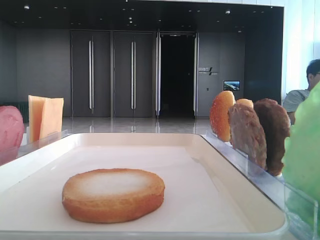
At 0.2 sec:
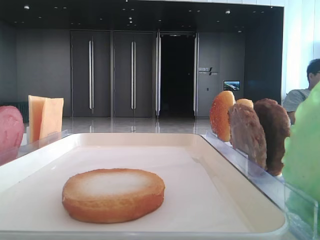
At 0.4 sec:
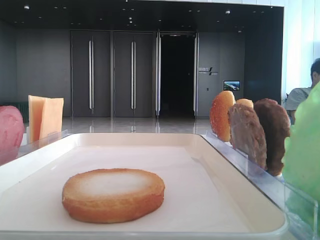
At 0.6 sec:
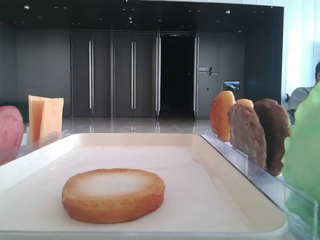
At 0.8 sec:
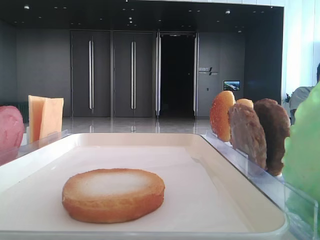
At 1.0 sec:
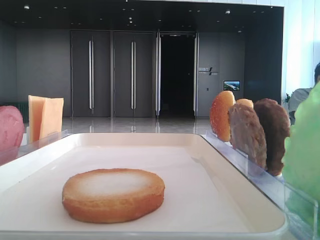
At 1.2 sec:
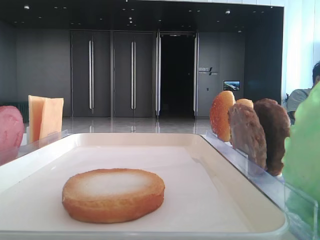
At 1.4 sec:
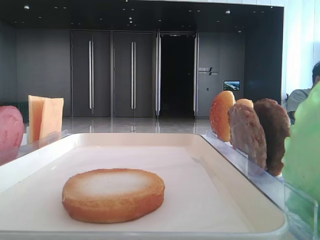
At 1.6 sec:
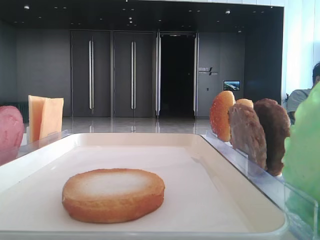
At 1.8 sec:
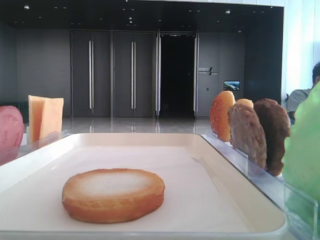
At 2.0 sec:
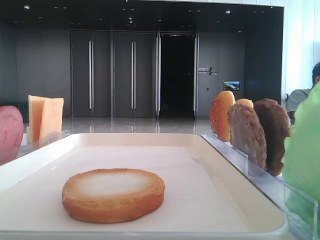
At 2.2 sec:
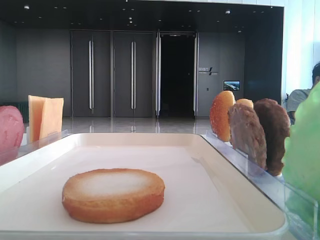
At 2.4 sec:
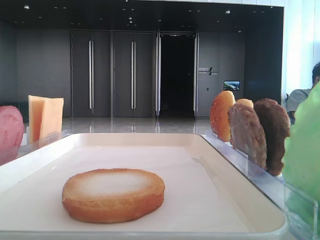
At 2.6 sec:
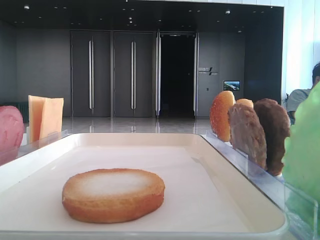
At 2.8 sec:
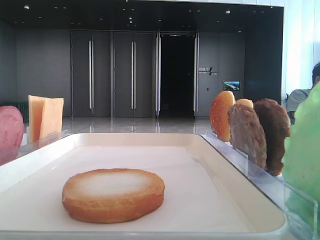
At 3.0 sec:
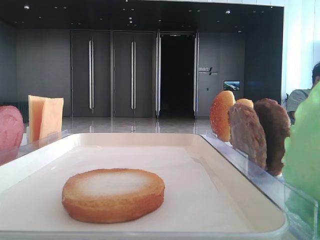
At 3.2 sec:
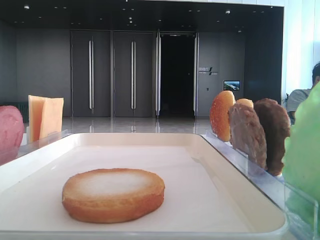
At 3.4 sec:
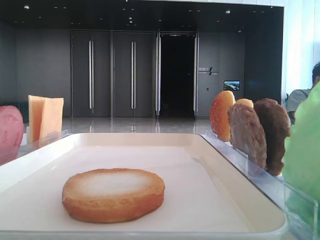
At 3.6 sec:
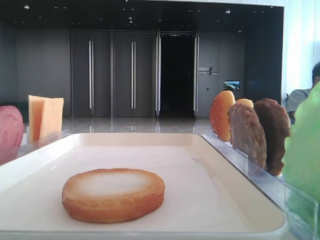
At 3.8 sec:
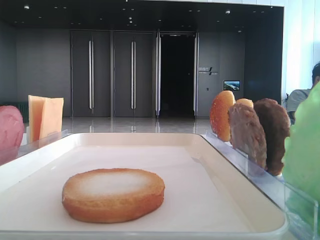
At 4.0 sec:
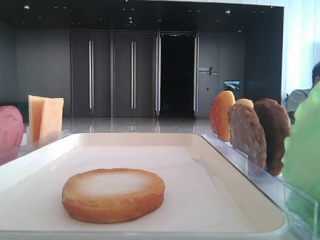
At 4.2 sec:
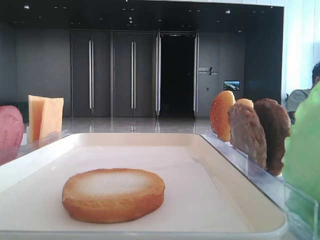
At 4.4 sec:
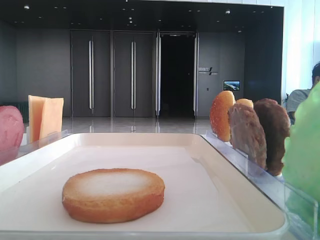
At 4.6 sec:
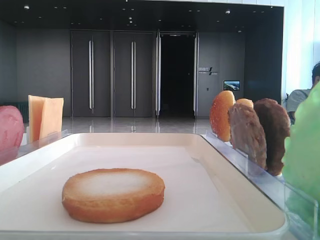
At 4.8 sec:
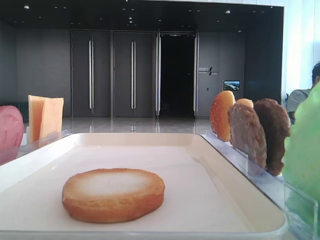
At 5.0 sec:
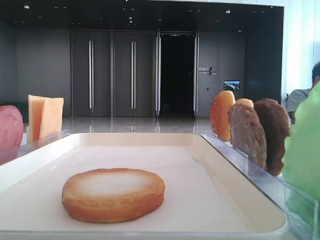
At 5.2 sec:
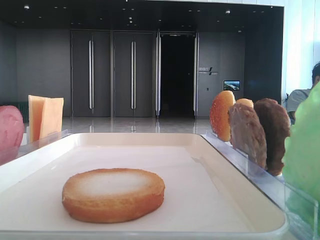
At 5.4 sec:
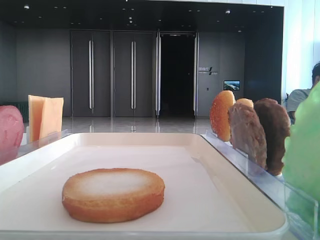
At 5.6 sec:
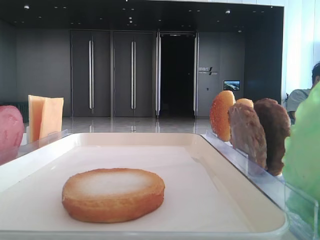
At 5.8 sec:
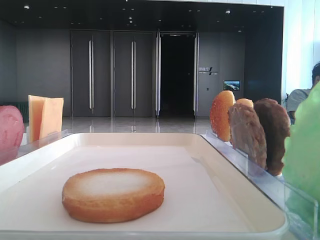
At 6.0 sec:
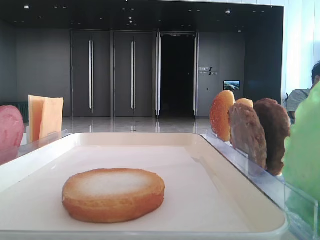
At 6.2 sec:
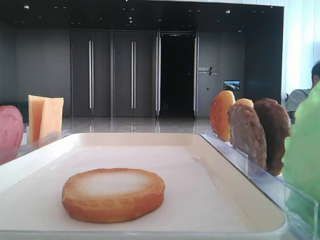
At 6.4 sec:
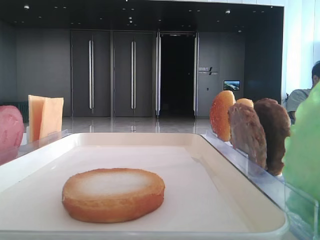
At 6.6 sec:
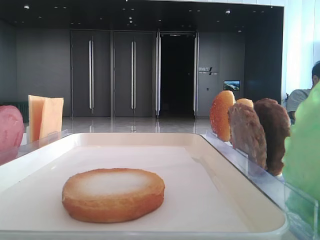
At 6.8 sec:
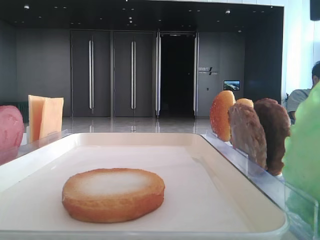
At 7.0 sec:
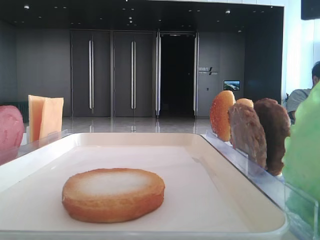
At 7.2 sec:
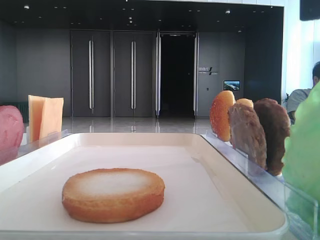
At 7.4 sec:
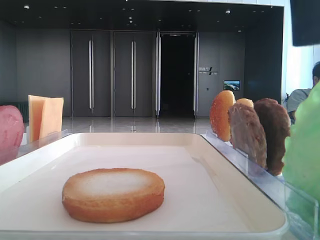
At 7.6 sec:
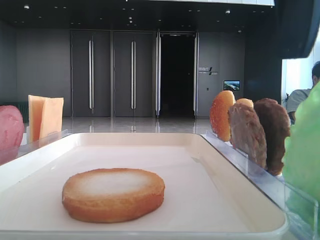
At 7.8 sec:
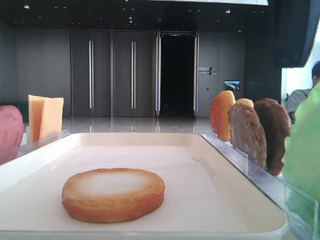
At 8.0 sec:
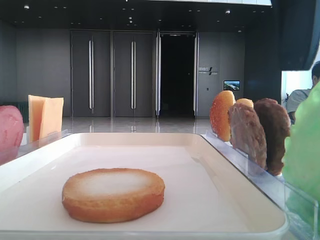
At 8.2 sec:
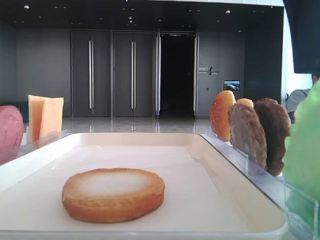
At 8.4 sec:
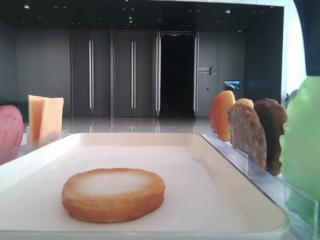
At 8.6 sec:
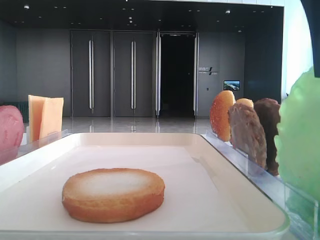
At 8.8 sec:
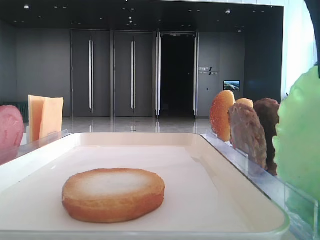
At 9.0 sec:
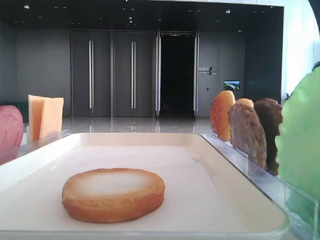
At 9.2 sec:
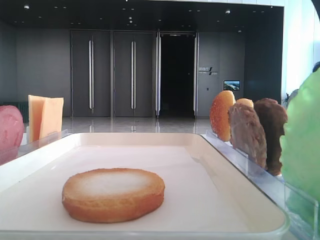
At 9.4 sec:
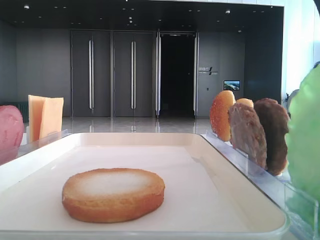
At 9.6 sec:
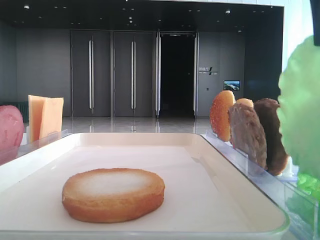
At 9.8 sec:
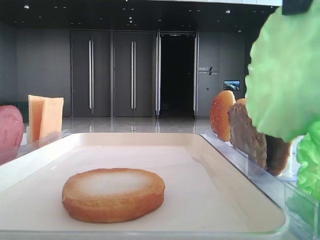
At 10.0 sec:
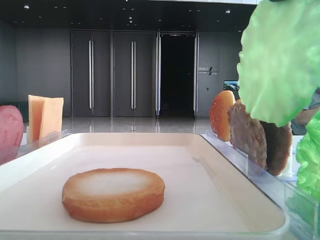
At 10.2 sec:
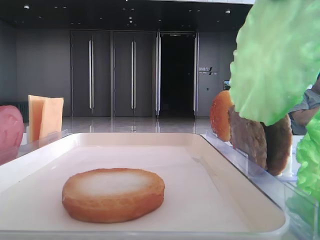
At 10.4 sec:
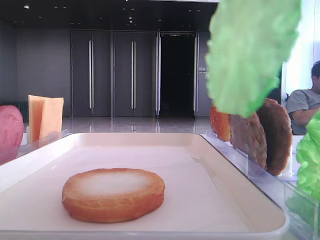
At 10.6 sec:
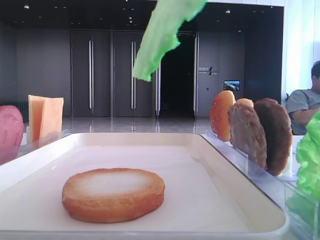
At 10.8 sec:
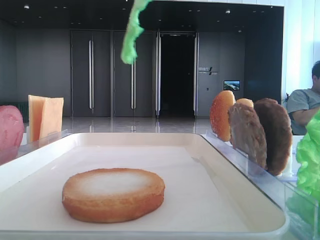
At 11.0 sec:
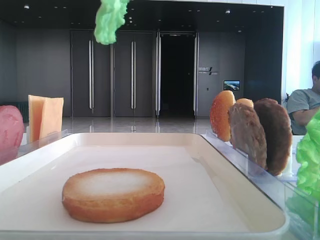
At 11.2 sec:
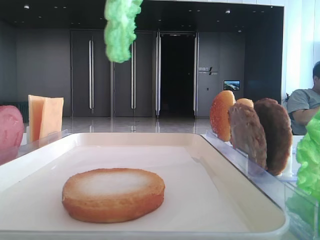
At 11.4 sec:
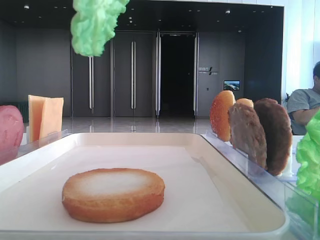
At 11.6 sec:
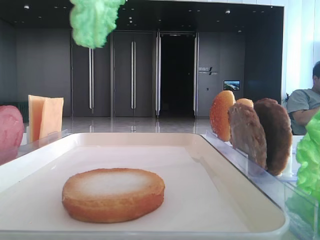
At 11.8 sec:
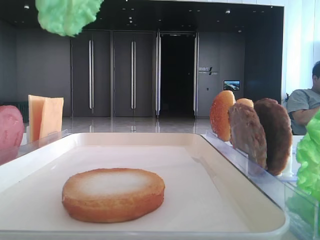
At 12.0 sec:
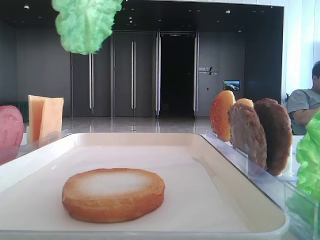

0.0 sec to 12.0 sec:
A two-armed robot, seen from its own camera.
Step, 0.0 sec to 8.4 sec: Grab the lettuce leaf with the right hand.
6.0 sec to 7.6 sec: The right gripper is displaced to the left by roughly 5 cm.
7.6 sec to 9.0 sec: The right gripper closes.
9.0 sec to 10.4 sec: The right gripper travels upward by some 5 cm.

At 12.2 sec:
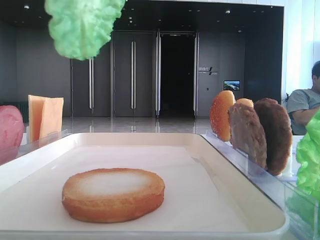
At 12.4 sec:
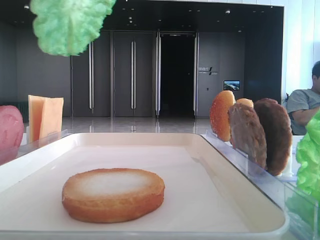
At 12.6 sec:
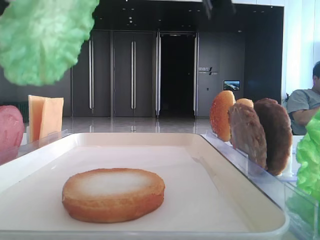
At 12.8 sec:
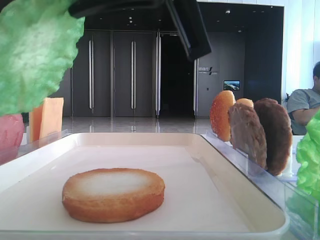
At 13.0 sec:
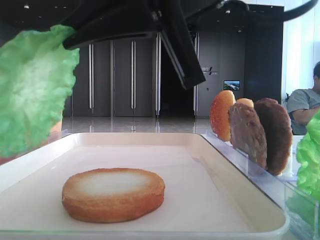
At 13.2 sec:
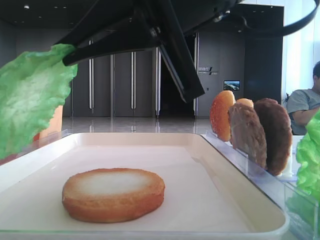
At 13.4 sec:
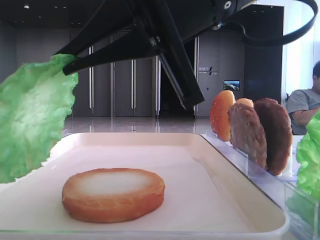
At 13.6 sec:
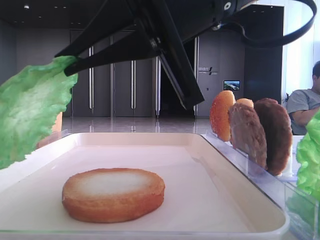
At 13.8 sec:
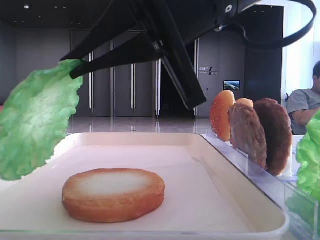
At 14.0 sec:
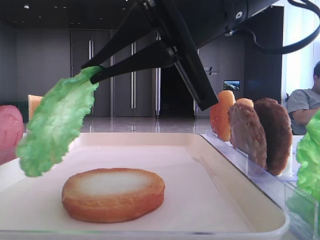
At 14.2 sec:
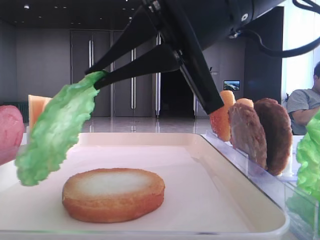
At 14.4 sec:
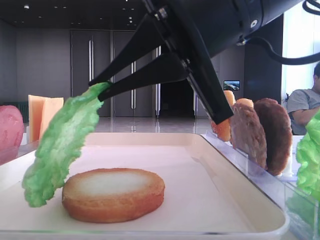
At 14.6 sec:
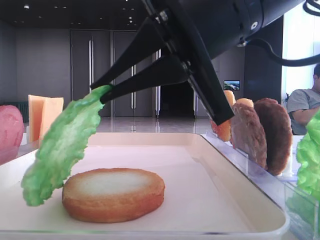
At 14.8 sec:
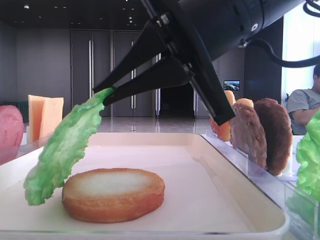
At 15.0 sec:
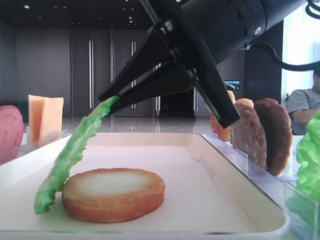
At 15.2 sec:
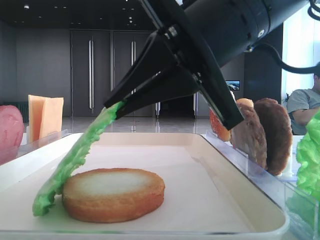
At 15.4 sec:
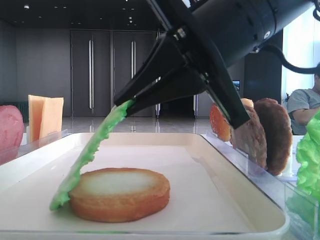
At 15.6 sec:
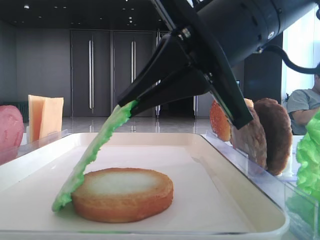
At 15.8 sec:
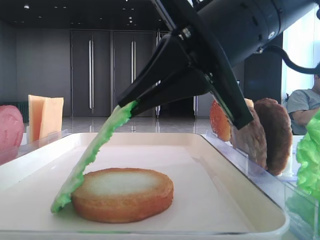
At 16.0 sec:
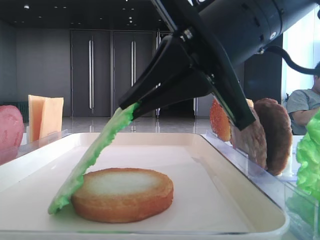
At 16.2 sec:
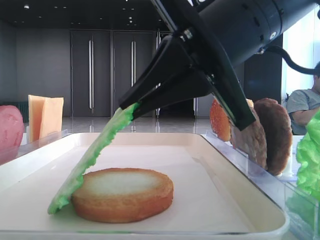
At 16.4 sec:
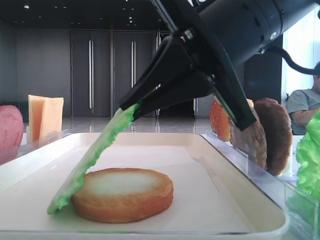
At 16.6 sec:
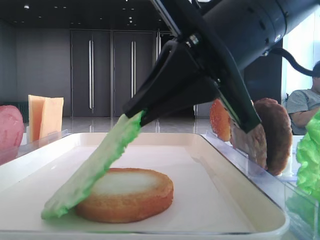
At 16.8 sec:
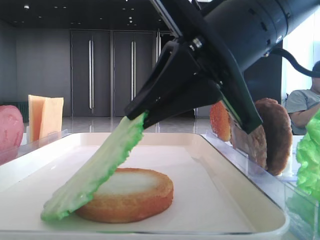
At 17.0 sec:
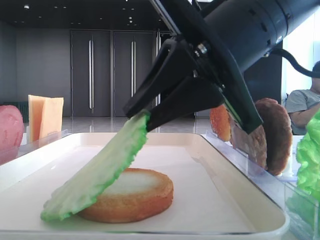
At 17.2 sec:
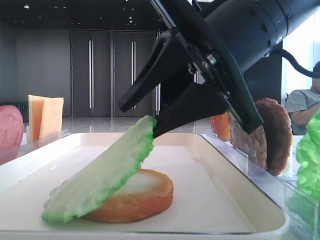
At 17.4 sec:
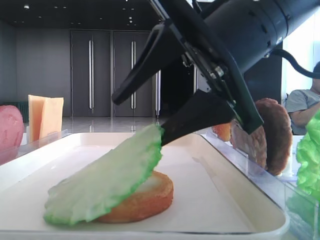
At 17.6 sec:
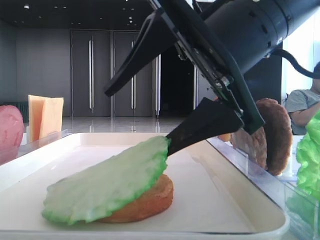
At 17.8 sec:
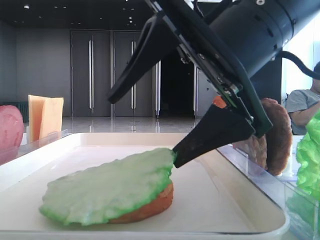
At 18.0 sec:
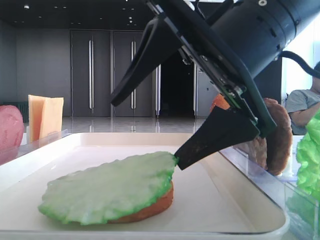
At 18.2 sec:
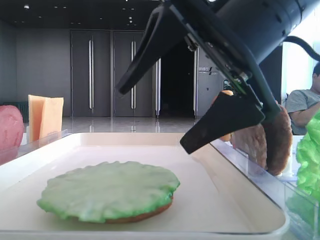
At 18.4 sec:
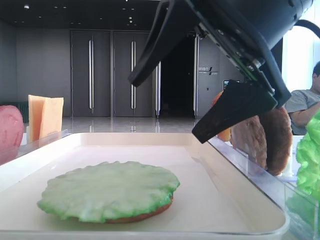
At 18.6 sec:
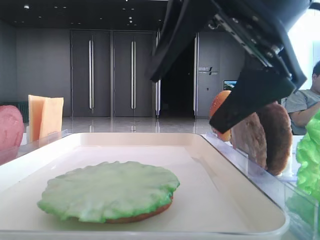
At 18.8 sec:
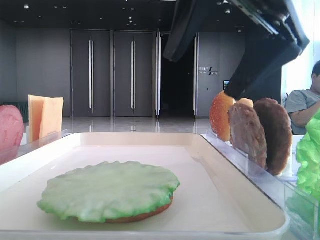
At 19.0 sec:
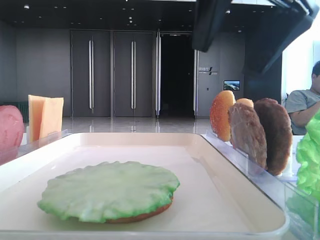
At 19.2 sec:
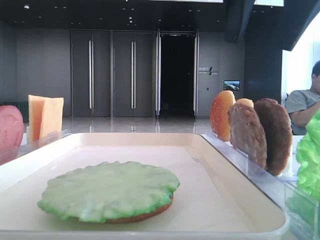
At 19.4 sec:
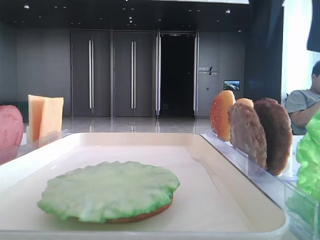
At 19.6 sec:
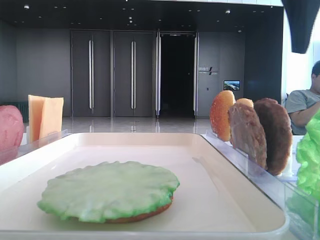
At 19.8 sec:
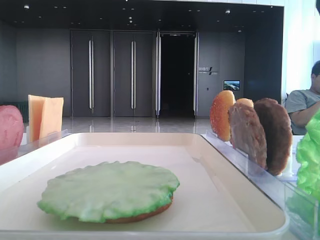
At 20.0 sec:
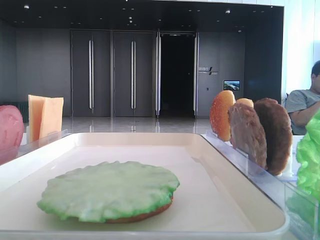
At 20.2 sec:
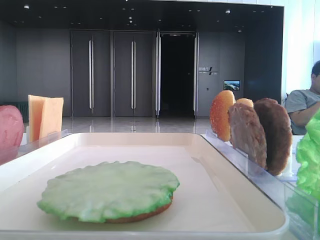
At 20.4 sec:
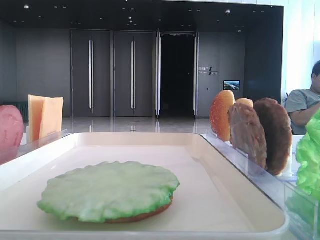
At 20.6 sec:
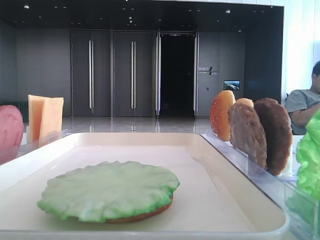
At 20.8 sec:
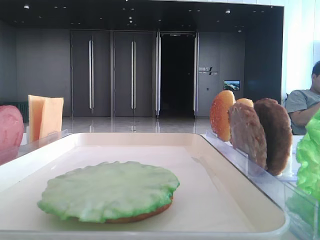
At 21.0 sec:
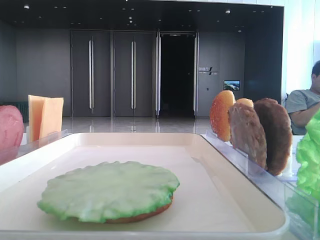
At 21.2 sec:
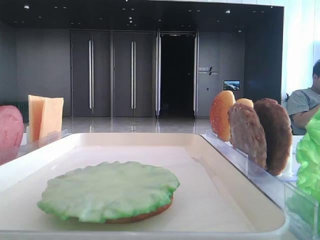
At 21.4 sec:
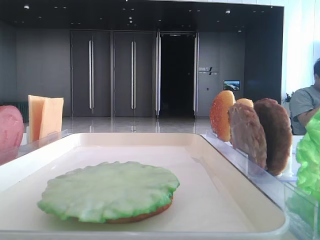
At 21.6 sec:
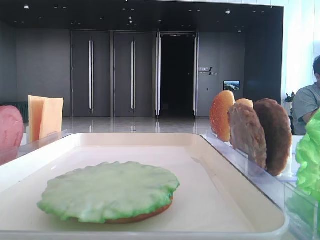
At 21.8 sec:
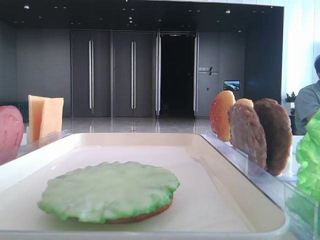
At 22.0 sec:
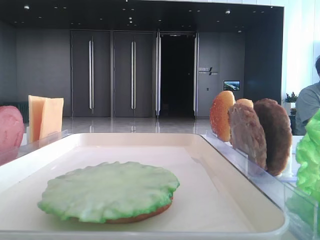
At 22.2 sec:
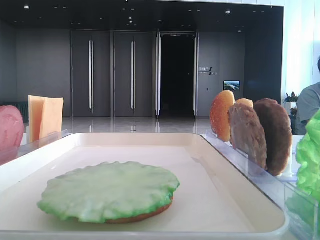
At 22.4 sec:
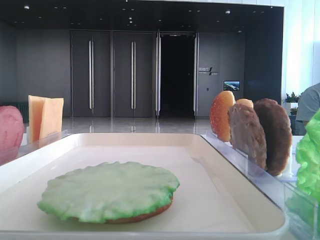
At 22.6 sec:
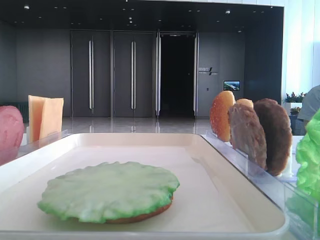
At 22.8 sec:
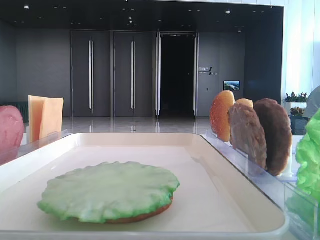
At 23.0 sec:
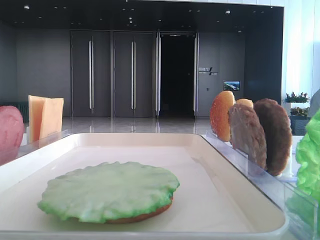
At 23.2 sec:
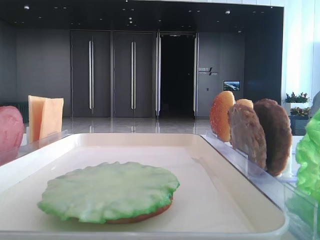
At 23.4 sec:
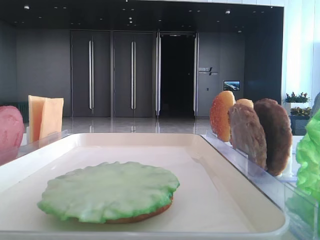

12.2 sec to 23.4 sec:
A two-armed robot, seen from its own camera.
Step, 12.2 sec to 18.0 sec: Place the lettuce leaf on the bottom bread with the right hand.
12.2 sec to 13.8 sec: The right gripper heads downward, covering some 10 cm.
15.4 sec to 17.0 sec: The grippers move only a little.
17.0 sec to 18.6 sec: The right gripper opens its fingers.
18.6 sec to 20.2 sec: The right gripper shifts about 20 cm to the right, upward and forward.
20.2 sec to 21.8 sec: The right gripper shifts some 25 cm backward and upward.
21.8 sec to 23.4 sec: The right gripper is displaced backward and downward by roughly 20 cm.
